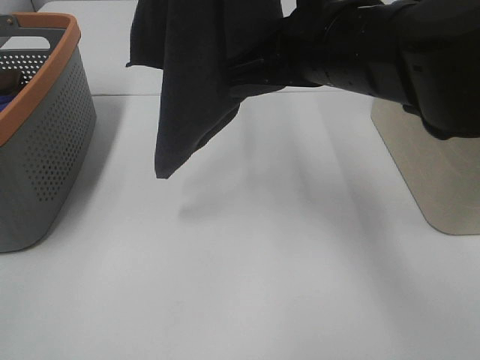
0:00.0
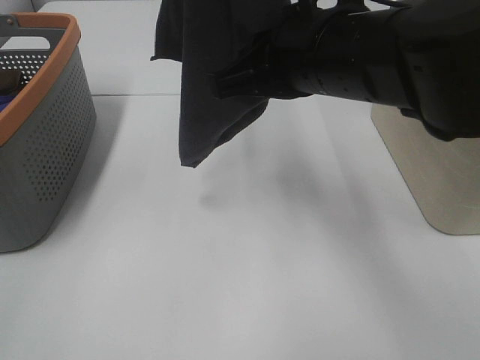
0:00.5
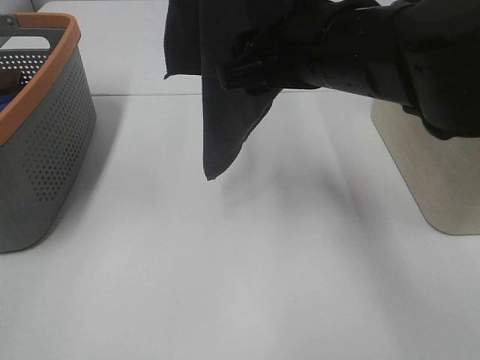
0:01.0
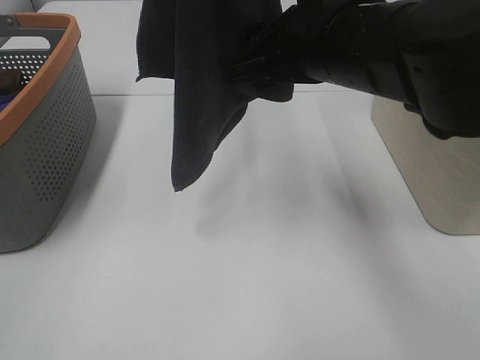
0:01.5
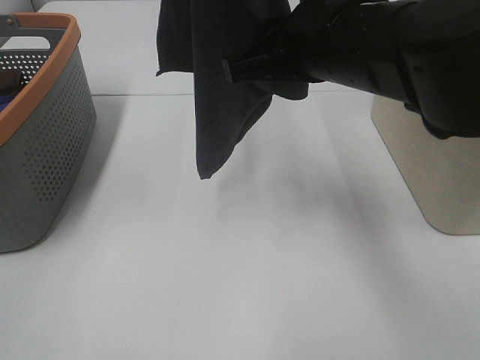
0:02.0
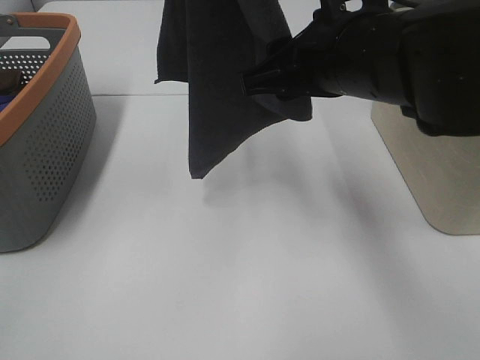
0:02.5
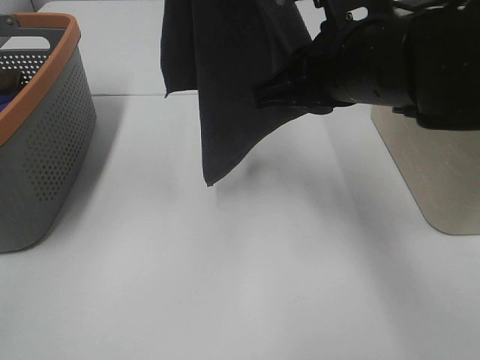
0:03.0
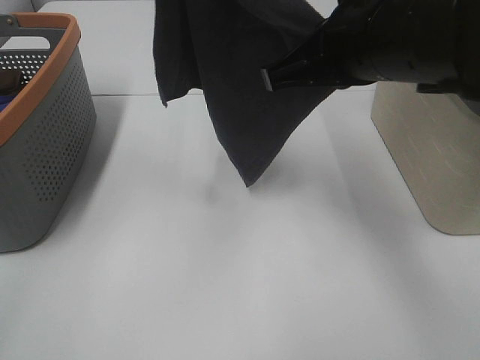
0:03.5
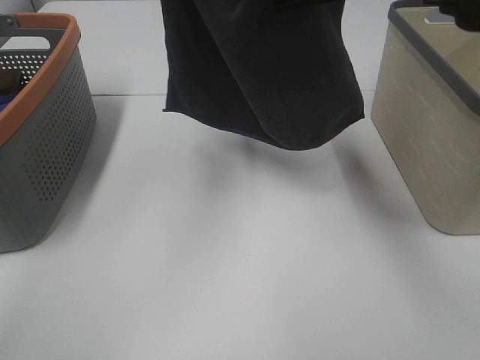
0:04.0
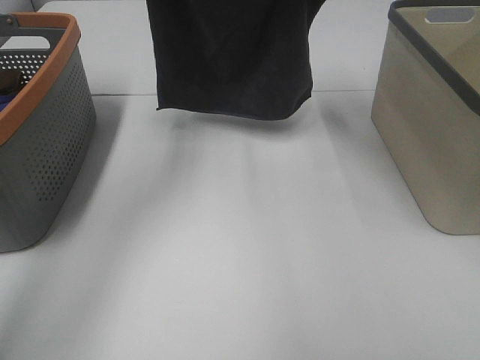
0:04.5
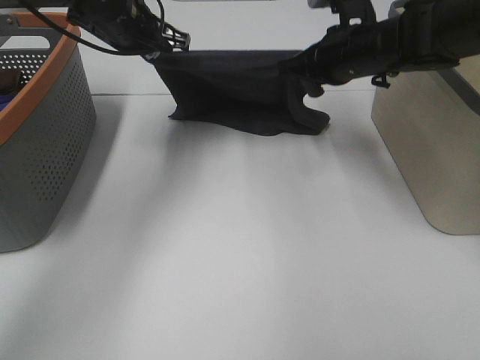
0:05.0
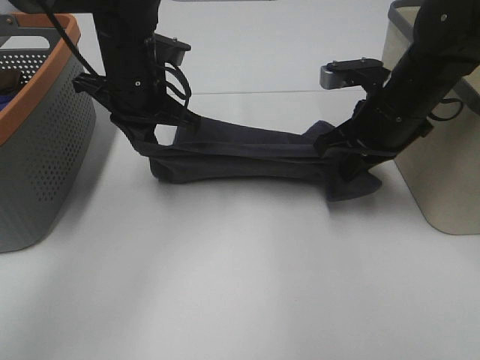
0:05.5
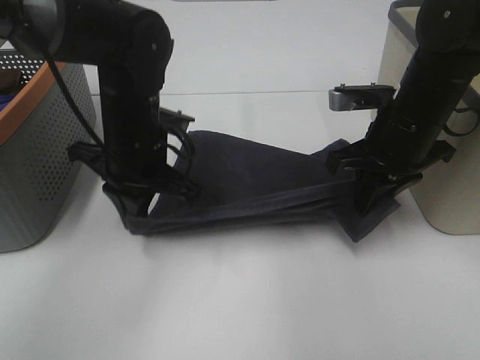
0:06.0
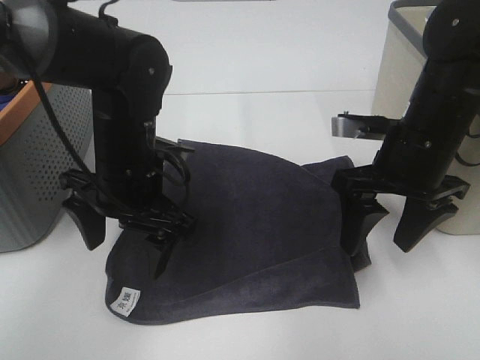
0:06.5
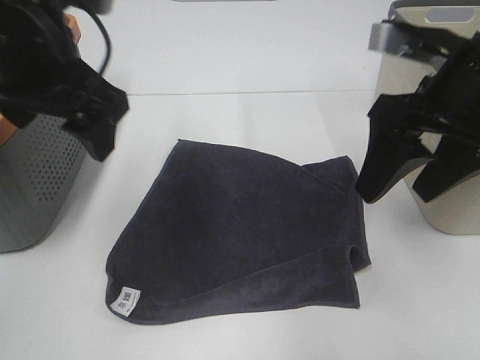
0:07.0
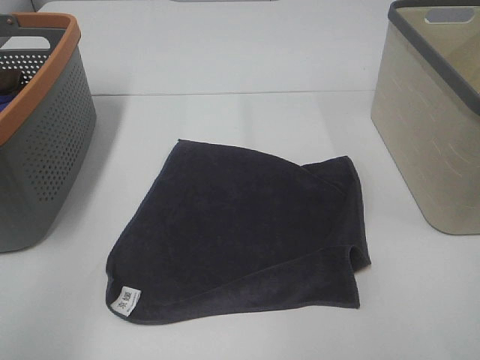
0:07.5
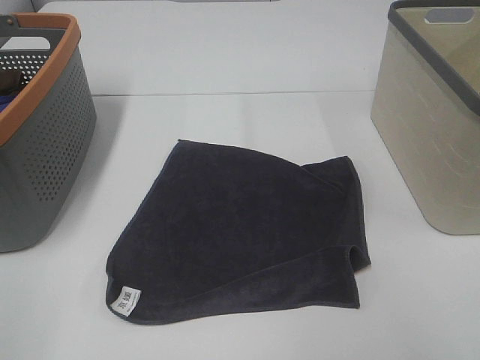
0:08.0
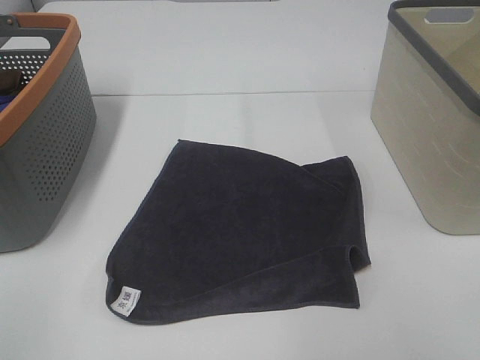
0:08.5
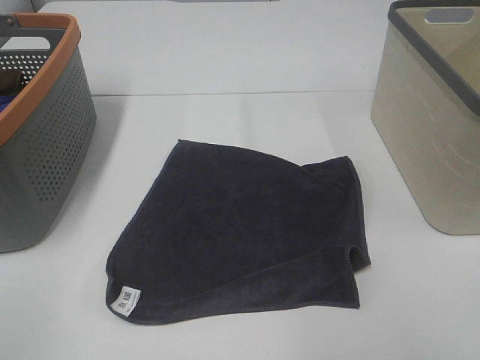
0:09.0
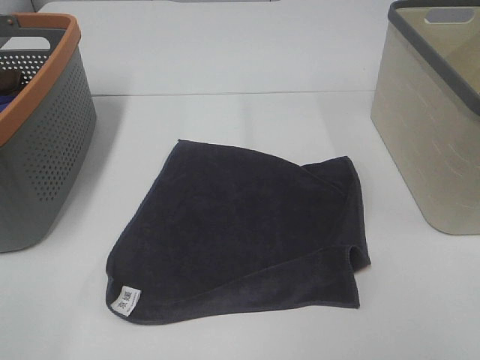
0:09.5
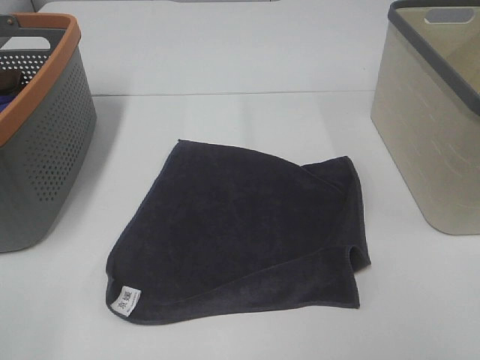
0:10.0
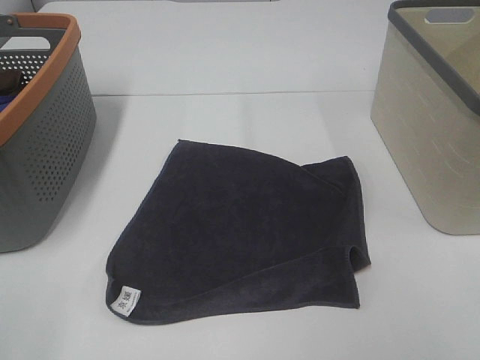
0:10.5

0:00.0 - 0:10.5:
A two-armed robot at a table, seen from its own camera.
Task of the whole recording: Remove the towel and place it.
Step, 0:00.5 - 0:01.5: Left hand: spread the grey towel flat on the table.
Step, 0:00.5 - 0:01.5: Right hand: spread the grey towel flat on the table.
0:00.0 - 0:02.0: The right gripper opens its fingers.
0:02.0 - 0:04.0: The right gripper heads upward, covering roughly 5 cm, and closes up; the left gripper moves forward and downward, about 15 cm.
0:04.0 - 0:06.5: The right gripper is displaced downward and to the right by about 15 cm, and opens up. Meanwhile the left gripper shifts about 25 cm downward, and opens.
0:06.5 - 0:08.5: The right gripper goes about 30 cm backward. The left gripper is displaced backward, to the left and upward by about 40 cm.

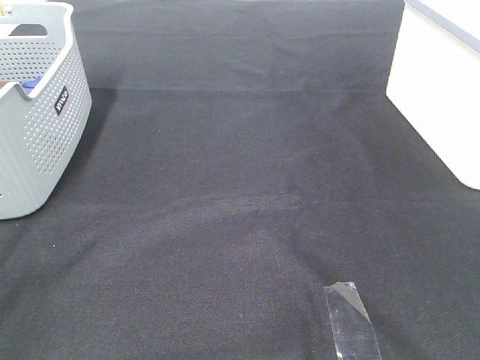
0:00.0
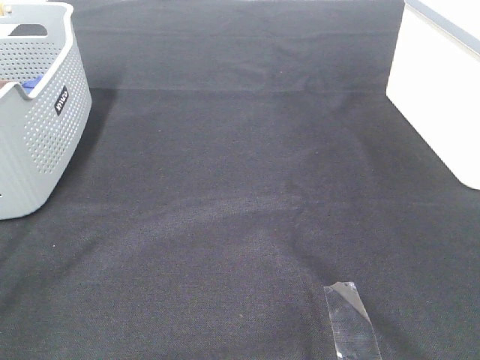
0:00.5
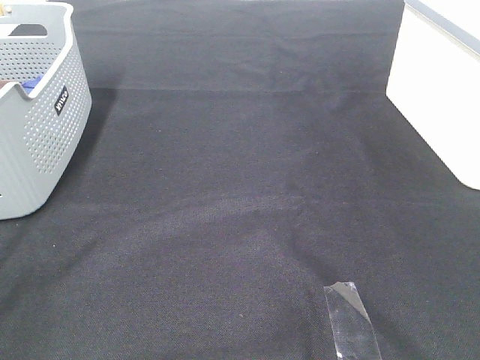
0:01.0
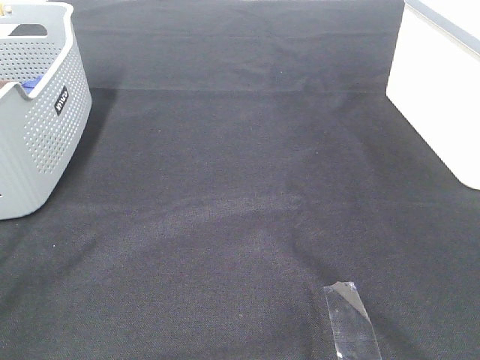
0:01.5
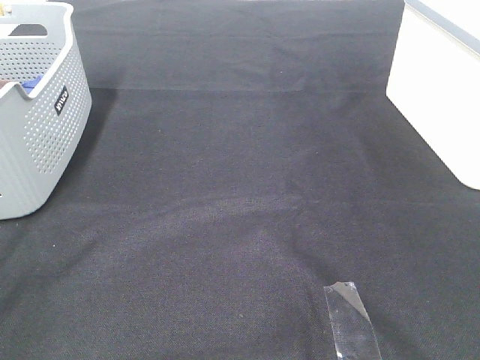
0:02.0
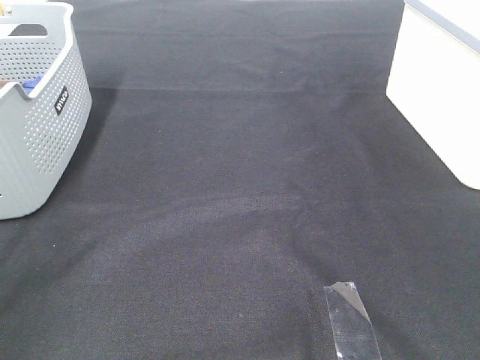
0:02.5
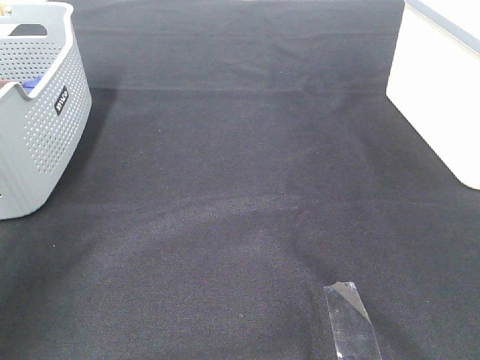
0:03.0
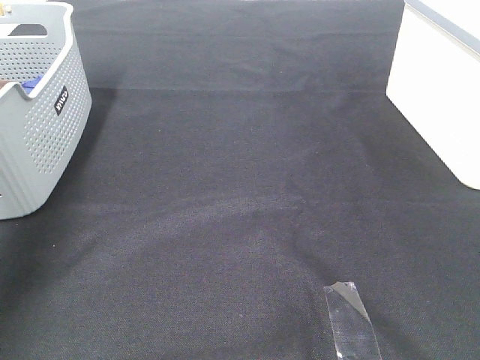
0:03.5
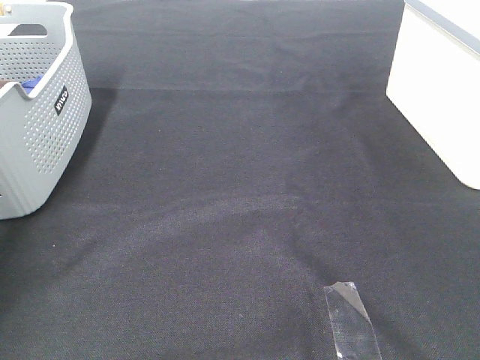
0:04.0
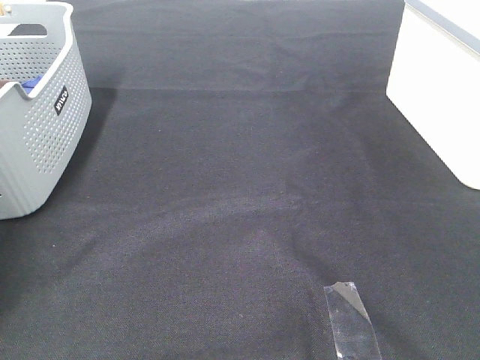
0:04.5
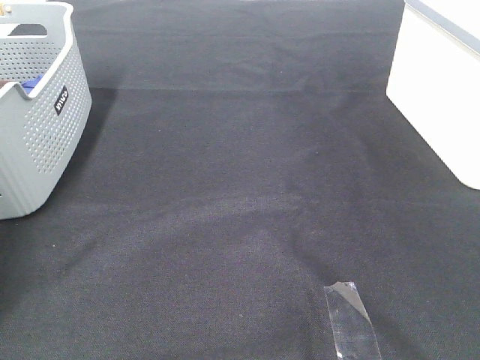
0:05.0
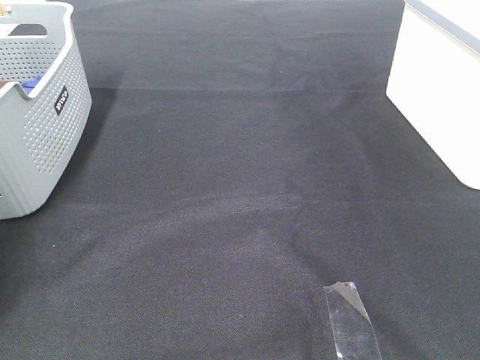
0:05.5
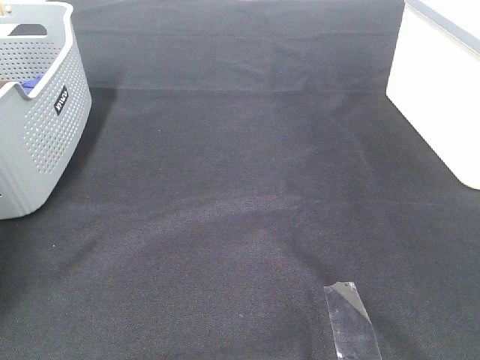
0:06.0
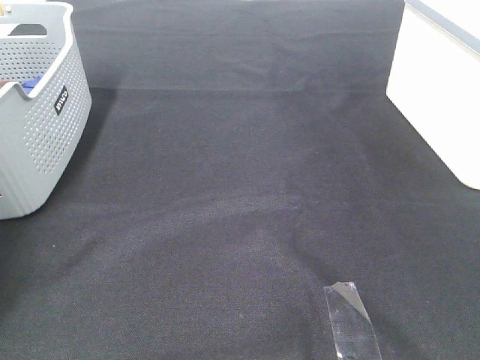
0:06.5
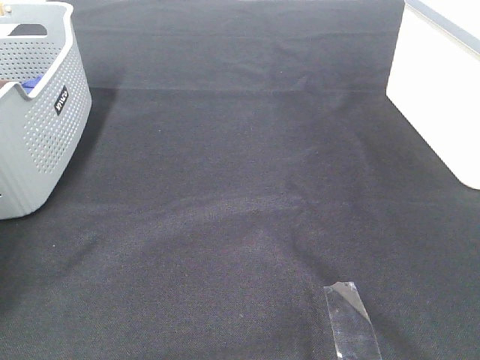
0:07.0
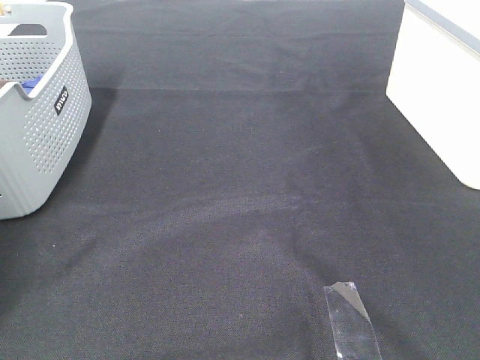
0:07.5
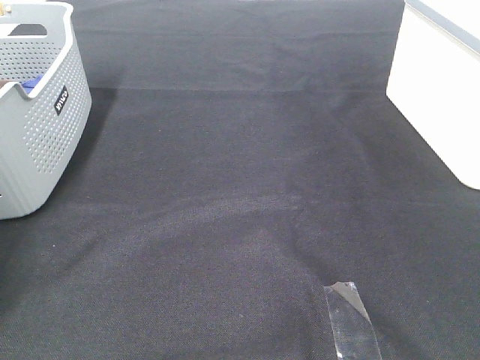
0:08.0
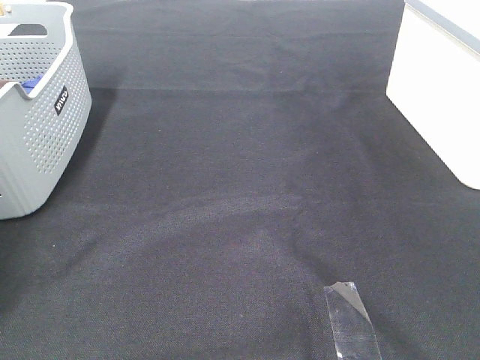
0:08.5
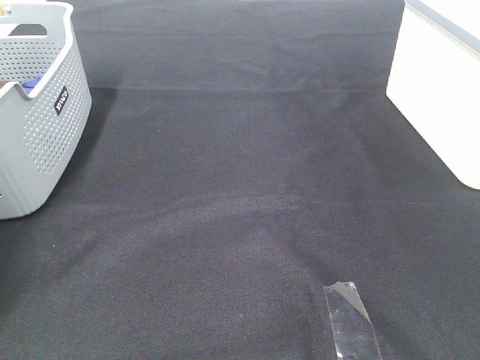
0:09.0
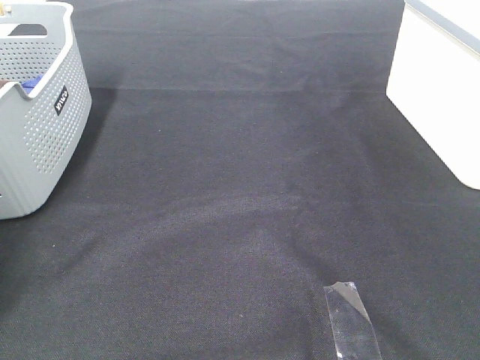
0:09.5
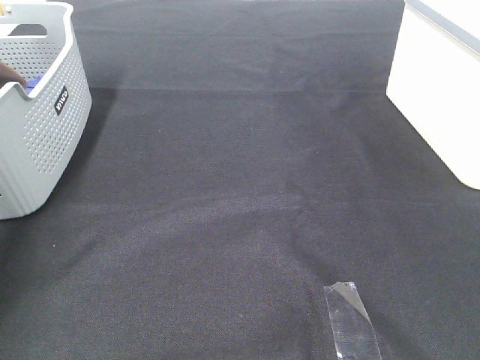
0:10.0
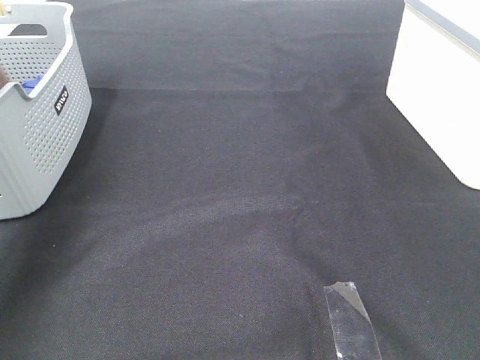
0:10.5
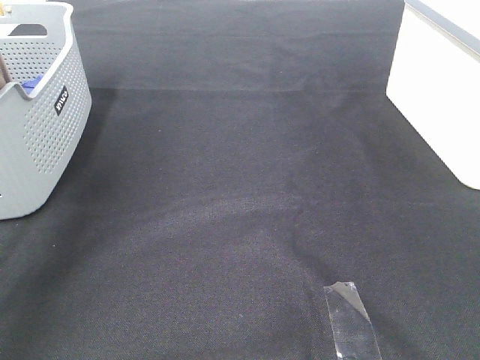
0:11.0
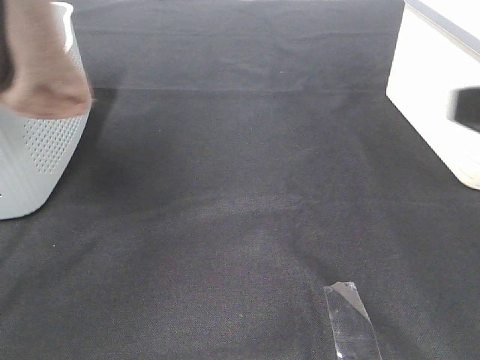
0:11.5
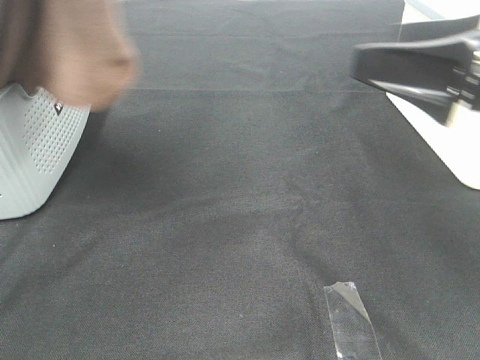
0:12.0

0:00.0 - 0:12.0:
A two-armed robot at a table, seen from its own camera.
Task of the whole recording: Remove the towel and place it.
0:00.0 - 0:02.0: The two grippers keep their place.
0:02.0 - 0:04.0: The left gripper is displaced forward by roughly 40 cm.
0:10.0 - 0:12.0: The right gripper travels forward by about 25 cm. Meanwhile the left gripper travels to the right, upward and backward by some 30 cm.

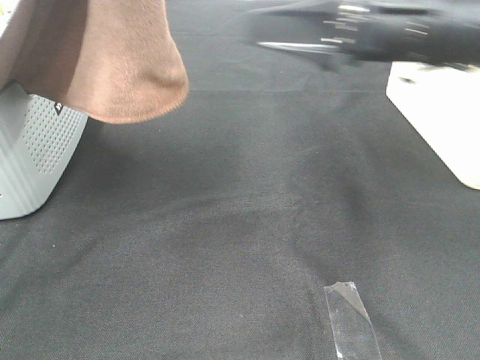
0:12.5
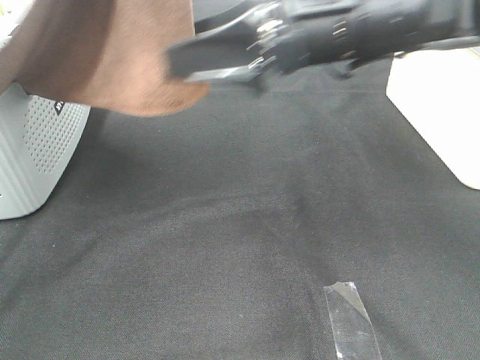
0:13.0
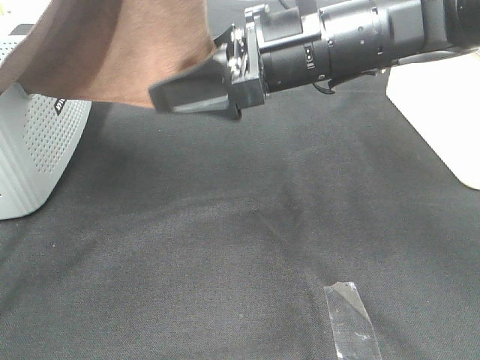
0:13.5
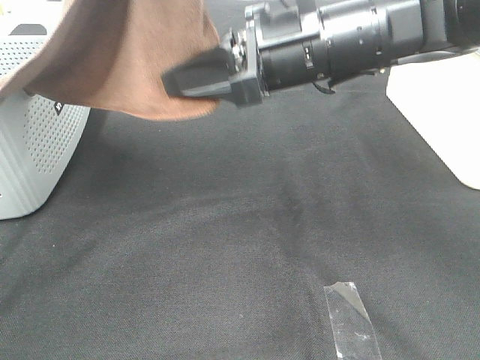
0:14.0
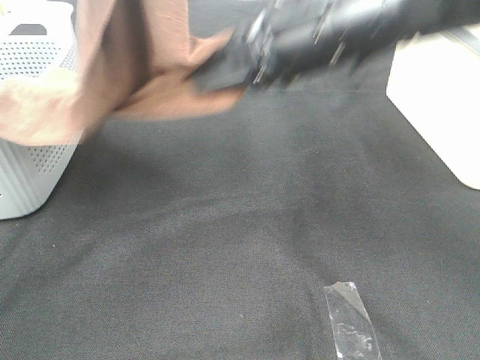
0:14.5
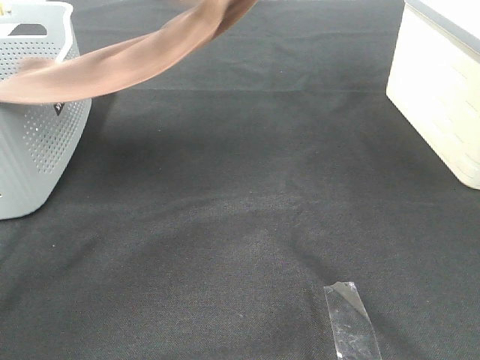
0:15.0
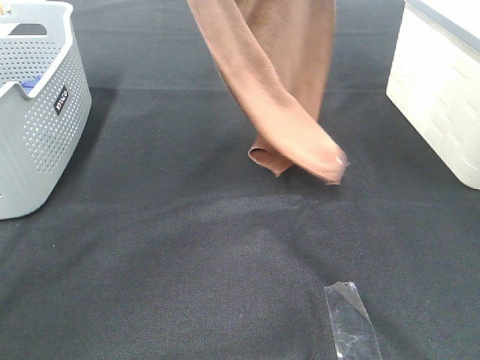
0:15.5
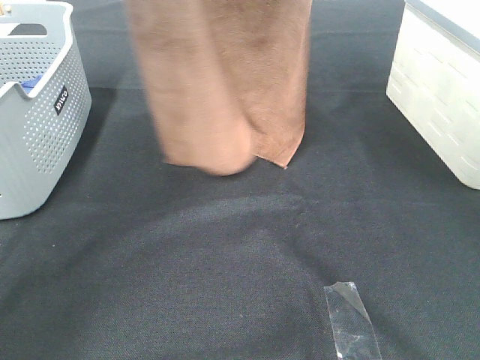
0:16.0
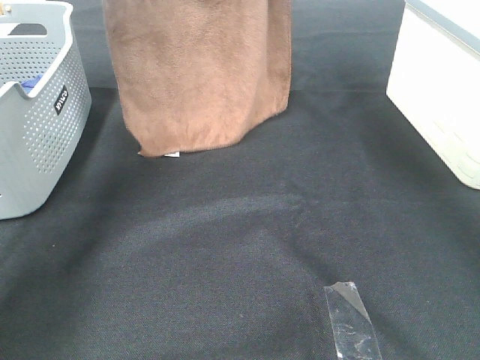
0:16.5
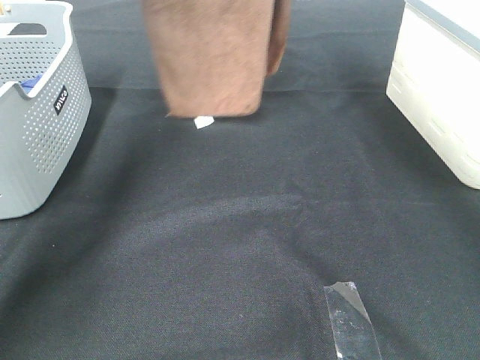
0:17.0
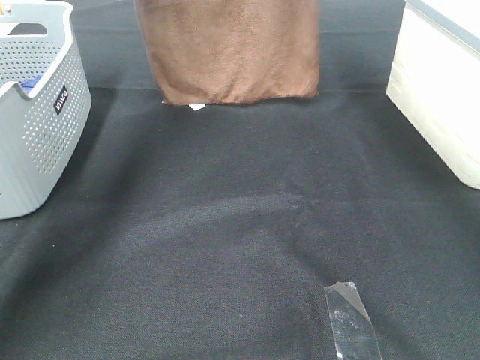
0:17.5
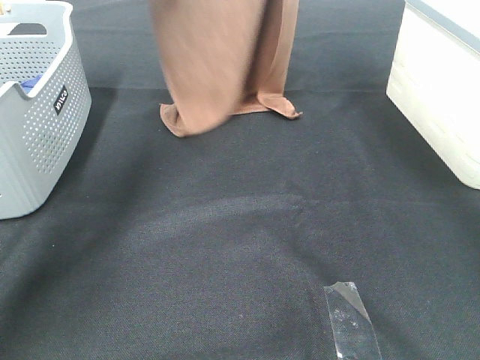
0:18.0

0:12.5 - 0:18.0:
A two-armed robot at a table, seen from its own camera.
Task of the whole recording: Remove the towel and place it.
0:12.5 - 0:14.5: The right gripper changes place by roughly 5 cm, and closes; the left gripper moves about 5 cm.
0:14.5 - 0:16.0: The left gripper moves forward, roughly 10 cm, while the right gripper travels upward and forward by approximately 25 cm.
0:16.0 - 0:18.0: The right gripper is displaced downward and forward by about 15 cm; the left gripper moves forward and downward, about 15 cm.
